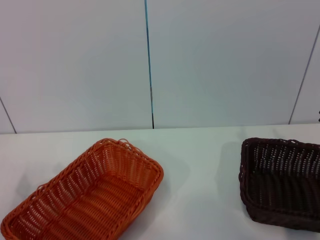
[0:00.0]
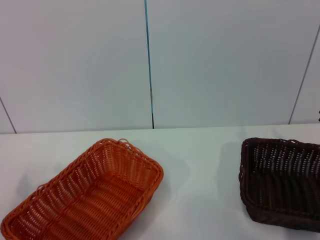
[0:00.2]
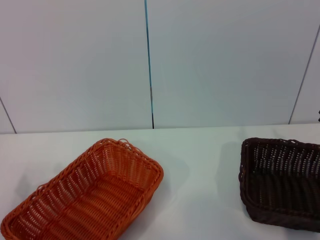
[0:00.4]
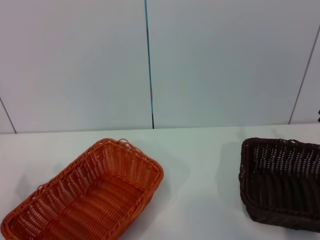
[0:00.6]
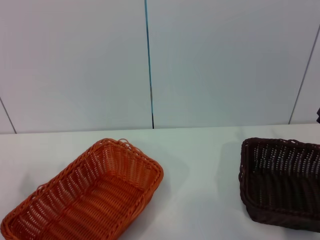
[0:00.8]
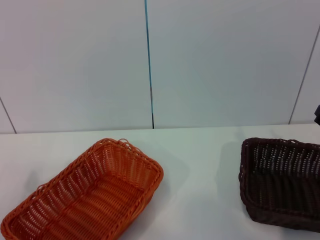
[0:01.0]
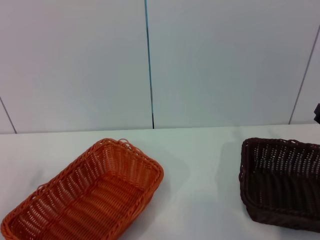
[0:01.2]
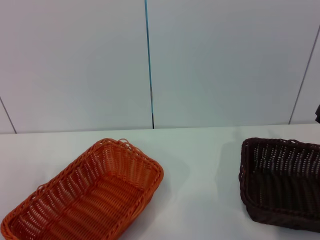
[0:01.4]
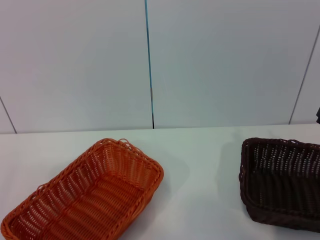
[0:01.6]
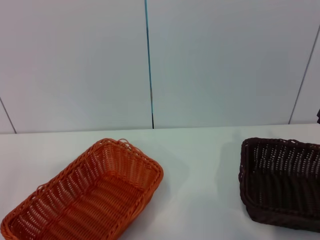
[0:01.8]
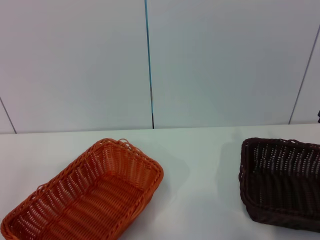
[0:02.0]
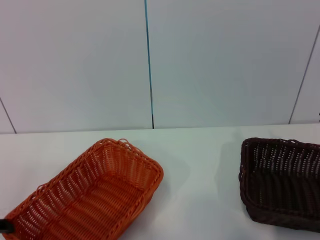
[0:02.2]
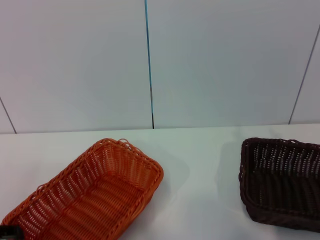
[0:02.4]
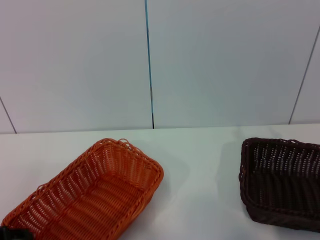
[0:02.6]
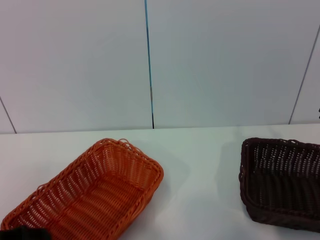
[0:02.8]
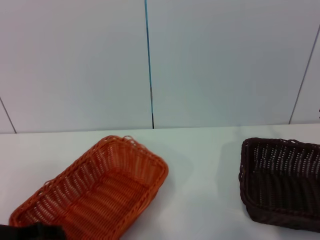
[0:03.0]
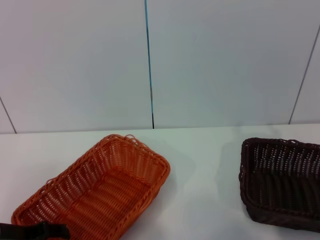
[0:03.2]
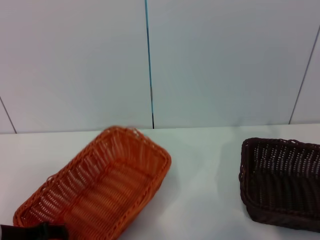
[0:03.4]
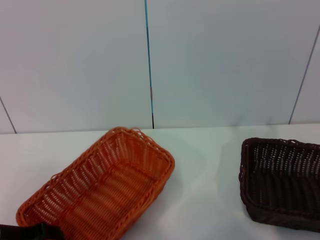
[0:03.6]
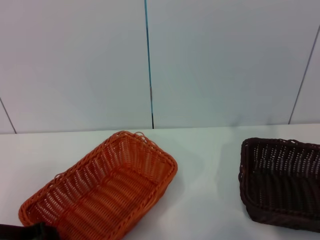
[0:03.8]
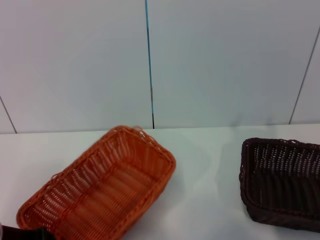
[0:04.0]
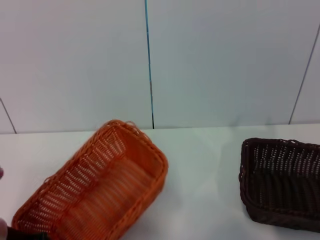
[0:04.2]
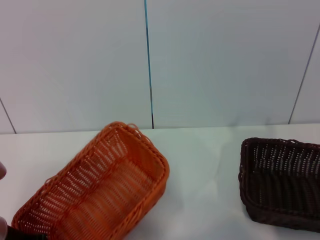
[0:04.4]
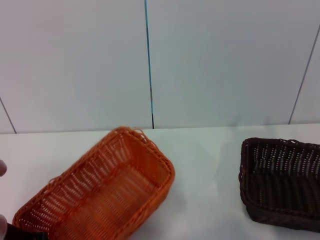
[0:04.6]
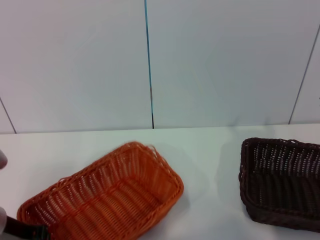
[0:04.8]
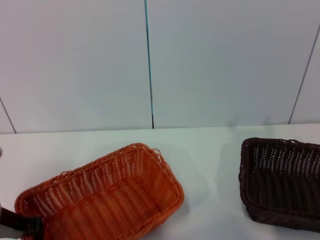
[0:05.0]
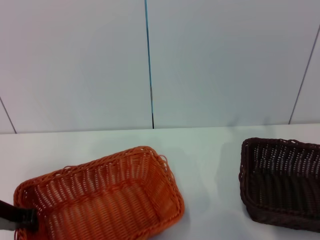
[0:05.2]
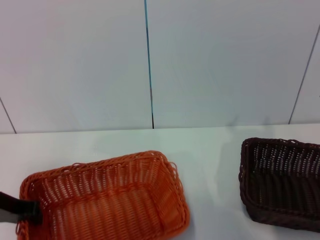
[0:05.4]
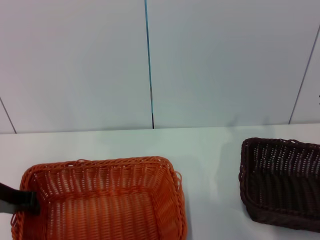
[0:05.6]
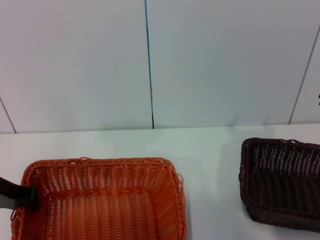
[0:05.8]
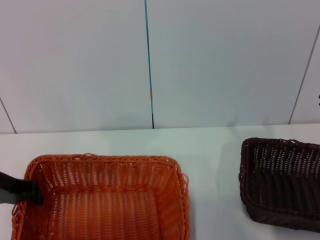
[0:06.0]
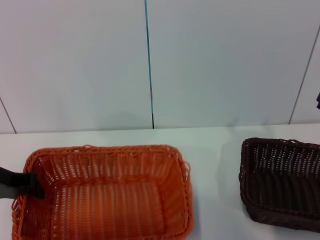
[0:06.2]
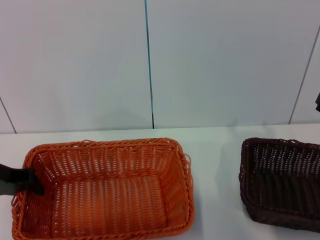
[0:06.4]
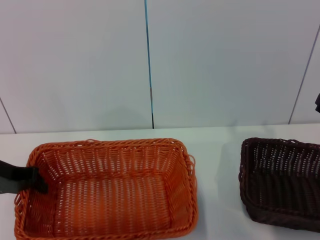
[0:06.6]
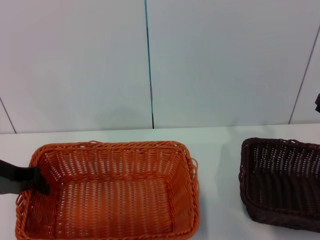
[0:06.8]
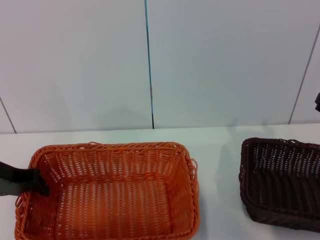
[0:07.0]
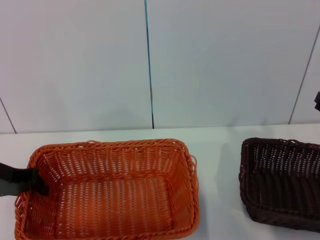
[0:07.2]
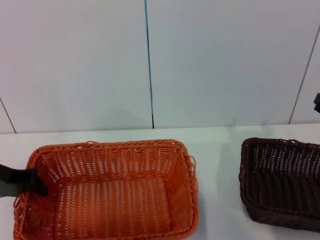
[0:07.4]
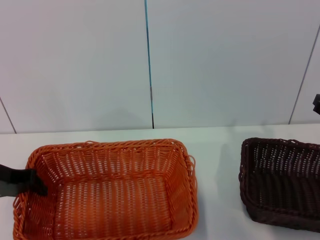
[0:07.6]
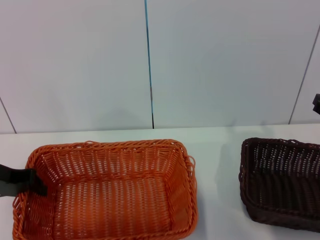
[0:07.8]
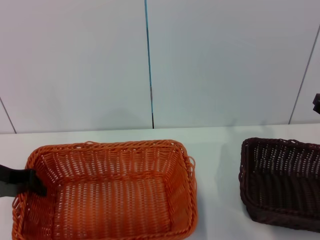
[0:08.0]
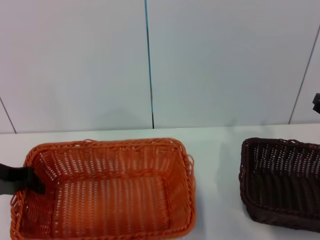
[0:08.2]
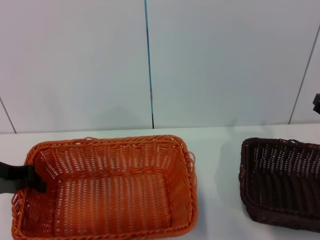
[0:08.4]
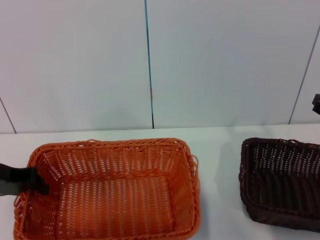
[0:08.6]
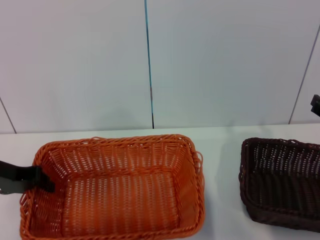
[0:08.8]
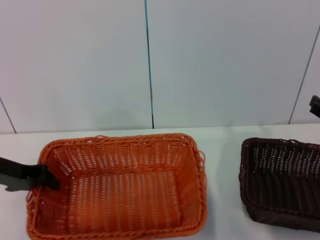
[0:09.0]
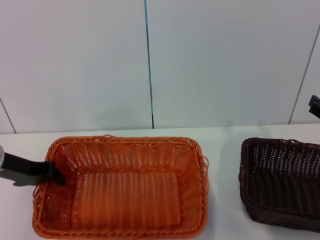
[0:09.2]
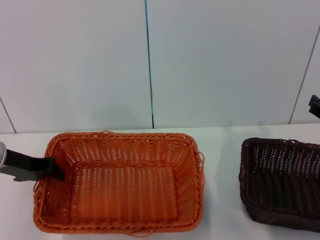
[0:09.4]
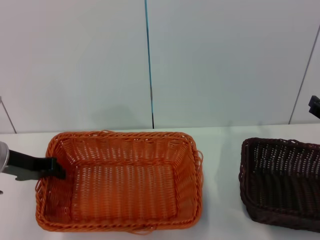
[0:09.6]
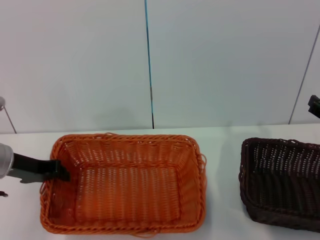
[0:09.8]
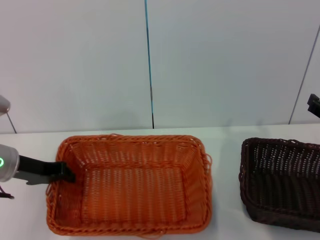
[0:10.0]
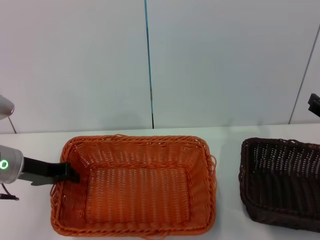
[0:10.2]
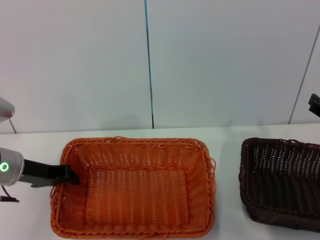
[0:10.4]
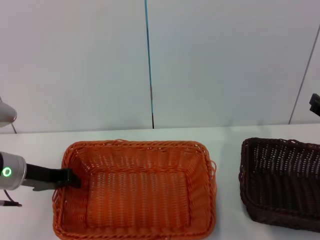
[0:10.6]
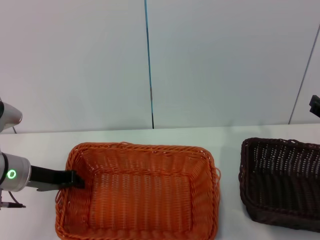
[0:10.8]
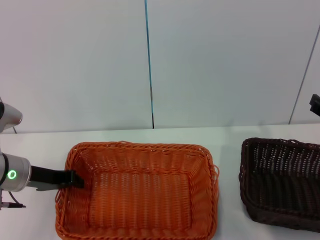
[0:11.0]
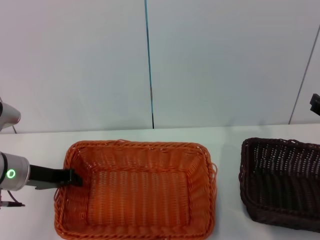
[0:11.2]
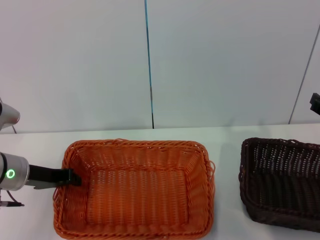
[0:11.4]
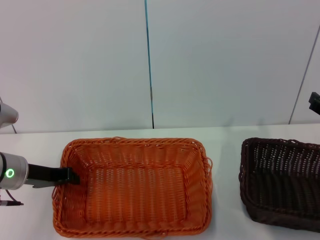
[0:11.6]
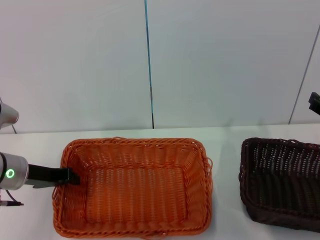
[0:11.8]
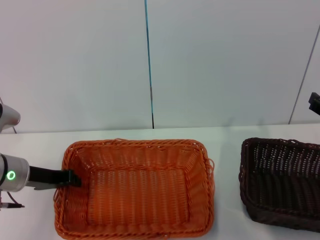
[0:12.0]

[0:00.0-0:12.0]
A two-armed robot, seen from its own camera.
Step, 0:00.0 to 0:06.2: Pick up the light basket with the left gripper.
0:01.6 to 0:03.0: The left gripper is displaced to the right by approximately 5 cm.
0:03.0 to 0:04.4: The left gripper closes its fingers.
0:04.4 to 0:06.0: The left gripper heads upward, covering about 10 cm.
0:06.0 to 0:09.0: There are only small adjustments of the grippers.
0:09.0 to 0:10.4: The left gripper moves approximately 5 cm.
0:10.4 to 0:12.0: The grippers move only a little.

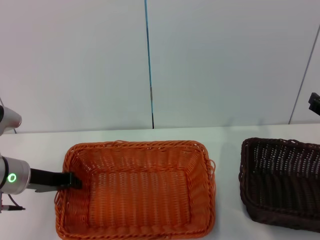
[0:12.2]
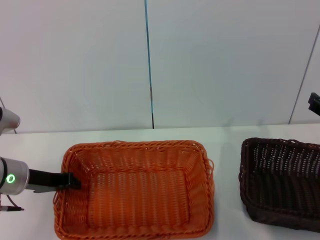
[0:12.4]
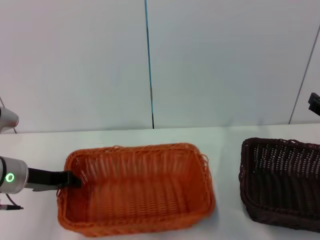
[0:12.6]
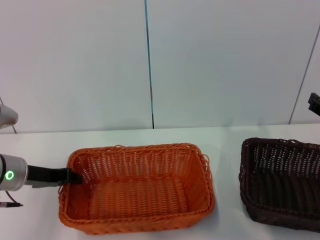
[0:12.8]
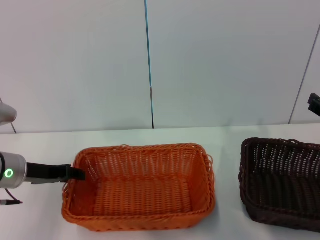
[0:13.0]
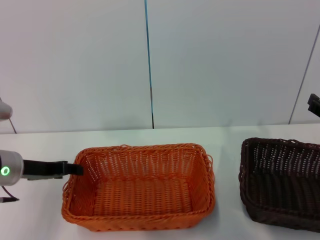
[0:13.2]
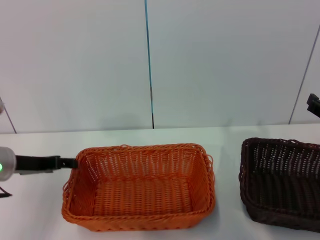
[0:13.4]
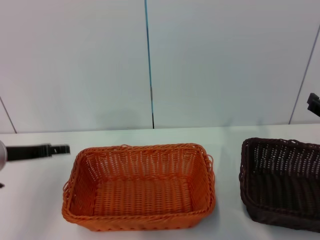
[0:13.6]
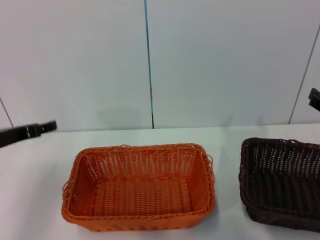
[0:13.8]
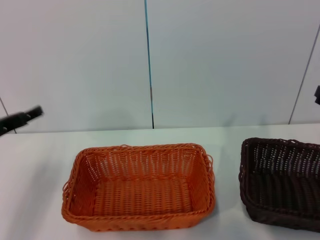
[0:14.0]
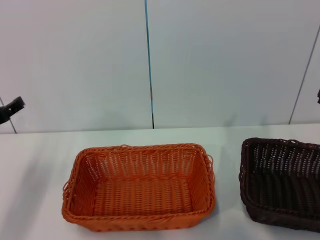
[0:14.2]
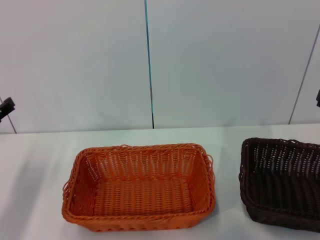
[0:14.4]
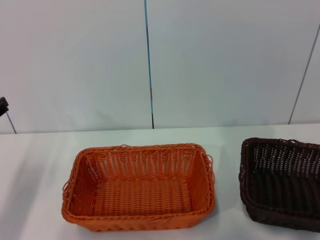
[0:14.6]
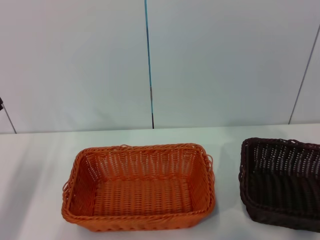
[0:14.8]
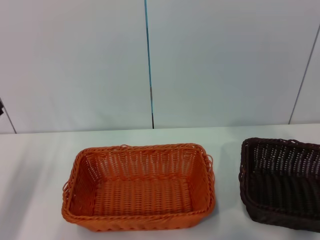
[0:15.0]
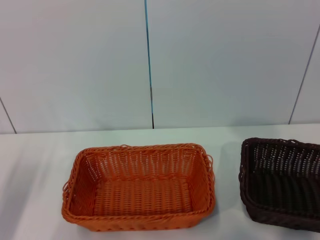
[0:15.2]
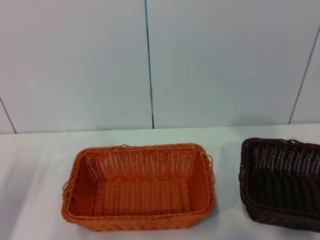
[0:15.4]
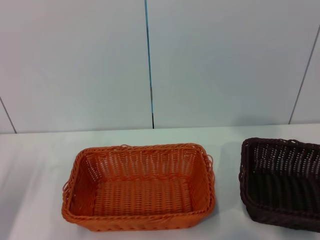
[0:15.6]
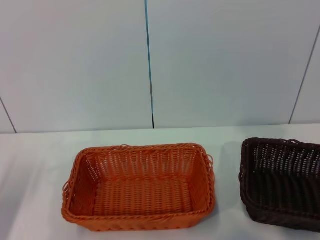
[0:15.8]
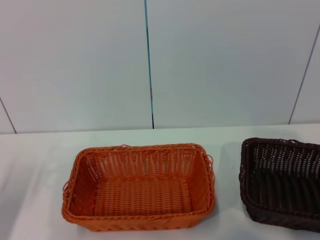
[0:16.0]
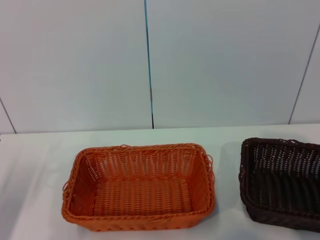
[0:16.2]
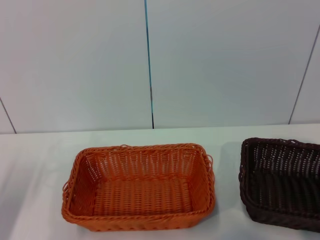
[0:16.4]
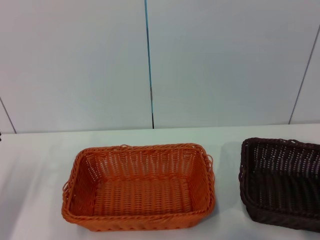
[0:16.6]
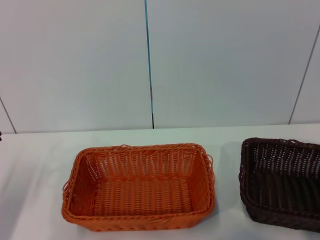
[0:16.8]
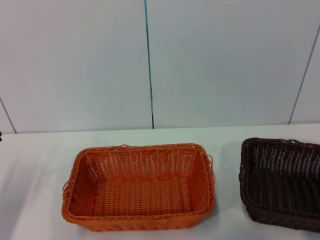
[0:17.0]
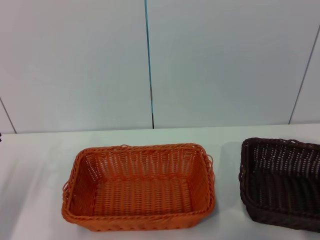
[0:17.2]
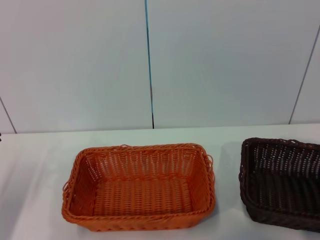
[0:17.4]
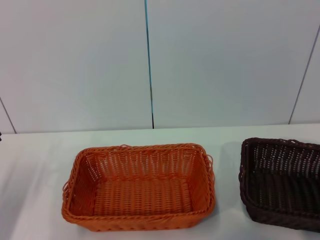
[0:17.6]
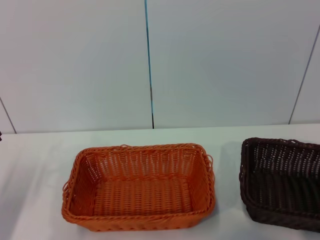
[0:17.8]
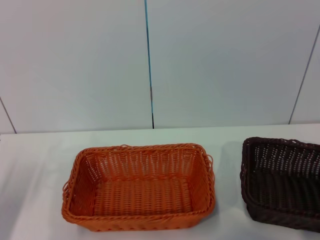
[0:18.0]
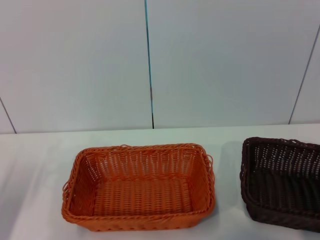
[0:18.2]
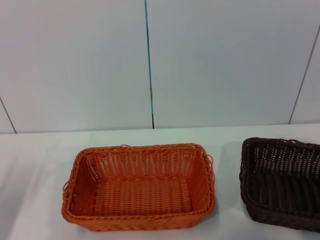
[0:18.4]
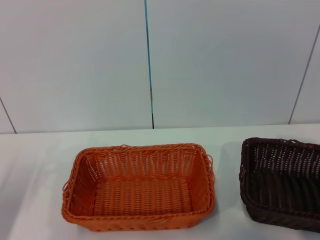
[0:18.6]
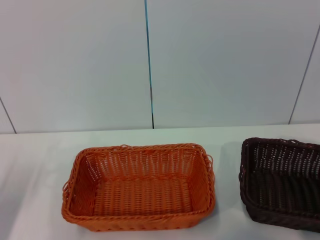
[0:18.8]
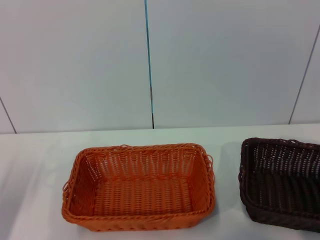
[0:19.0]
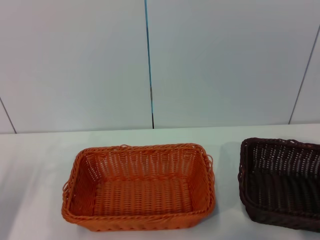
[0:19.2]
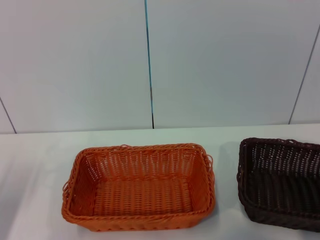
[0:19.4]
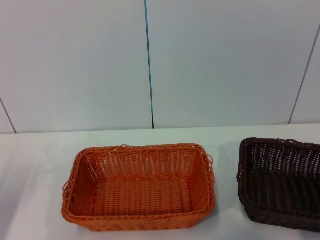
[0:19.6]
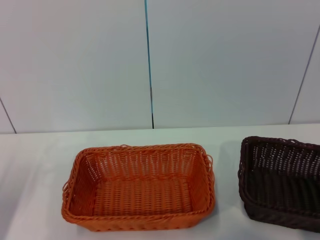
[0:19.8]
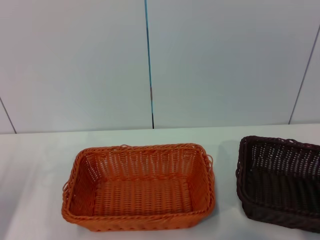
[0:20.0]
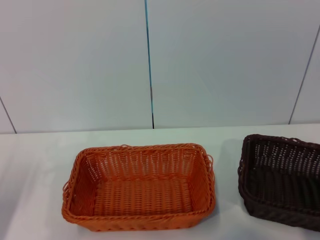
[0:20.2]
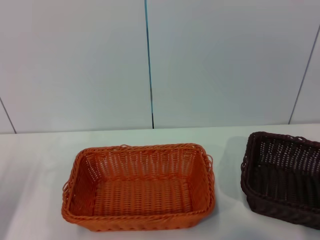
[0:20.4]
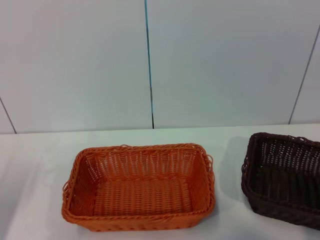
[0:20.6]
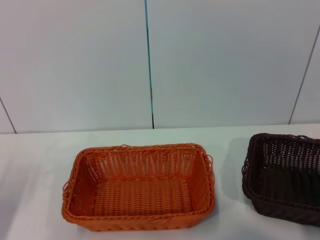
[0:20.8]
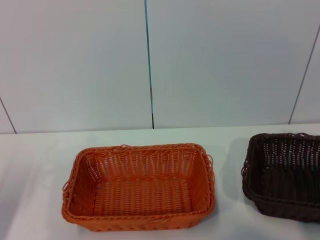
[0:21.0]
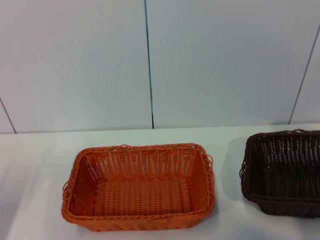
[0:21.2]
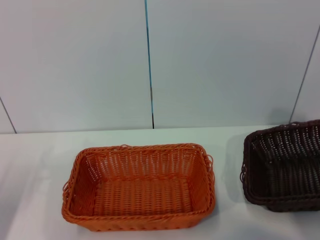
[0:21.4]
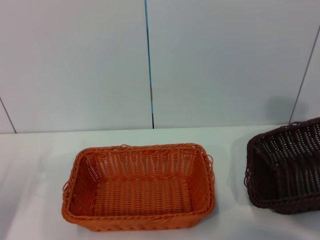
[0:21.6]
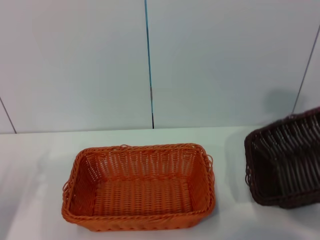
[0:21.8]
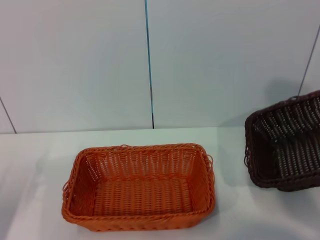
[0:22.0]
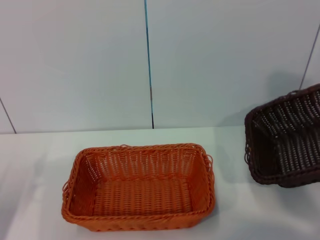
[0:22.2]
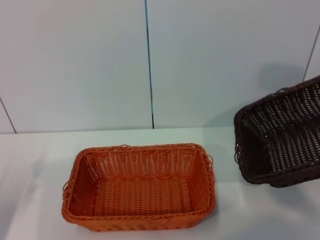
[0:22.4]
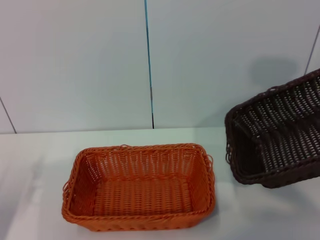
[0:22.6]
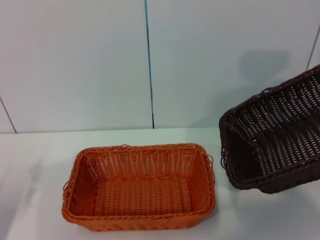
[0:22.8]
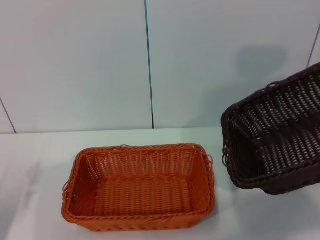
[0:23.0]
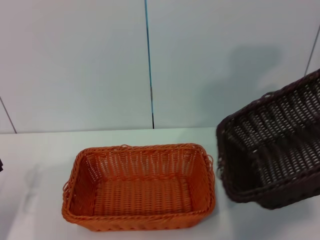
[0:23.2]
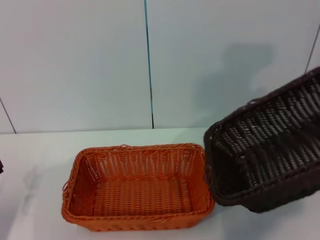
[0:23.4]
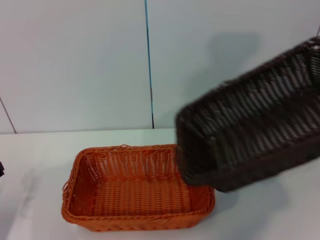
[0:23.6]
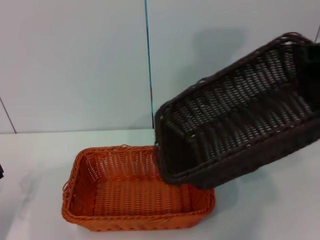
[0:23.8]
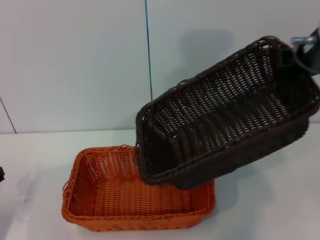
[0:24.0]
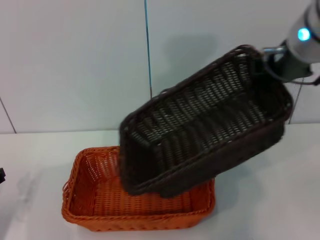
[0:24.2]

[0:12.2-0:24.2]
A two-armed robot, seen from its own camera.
Step, 0:13.2 to 0:21.6: Pick up the dark basket with the right gripper.
0:12.2 to 0:13.8: The left gripper shifts by some 5 cm, and opens.
0:13.8 to 0:15.2: The left gripper shifts about 5 cm to the left.
0:18.2 to 0:19.8: Both grippers stay put.
0:19.8 to 0:21.2: The right gripper heads upward, covering roughly 5 cm, and closes up.
0:21.2 to 0:22.6: The right gripper moves upward and to the left, approximately 15 cm.
0:22.6 to 0:24.2: The right gripper is displaced to the left by some 15 cm.
